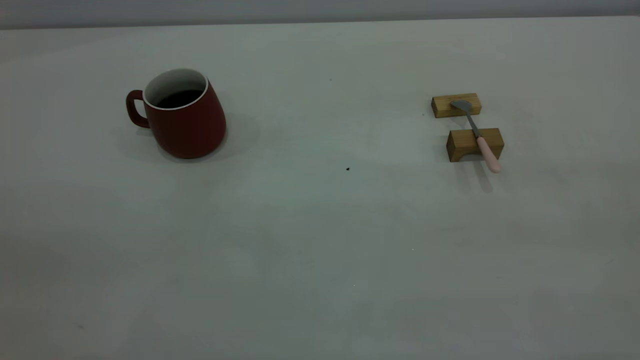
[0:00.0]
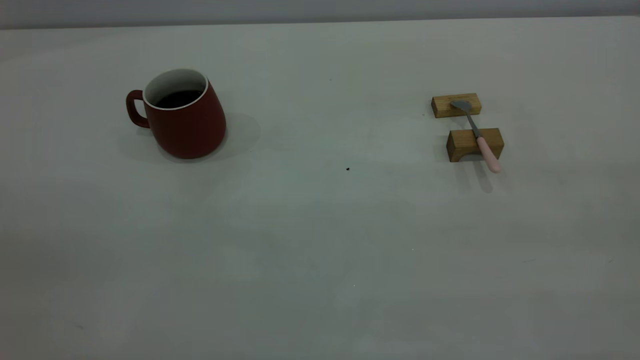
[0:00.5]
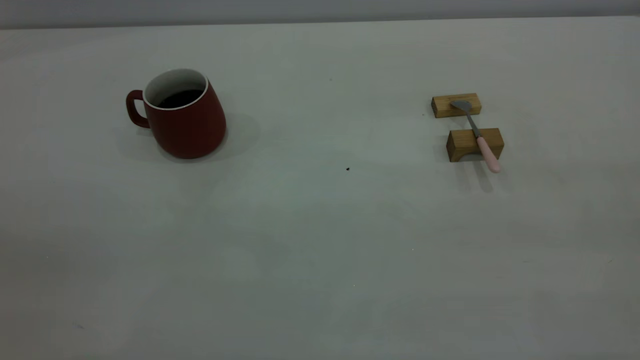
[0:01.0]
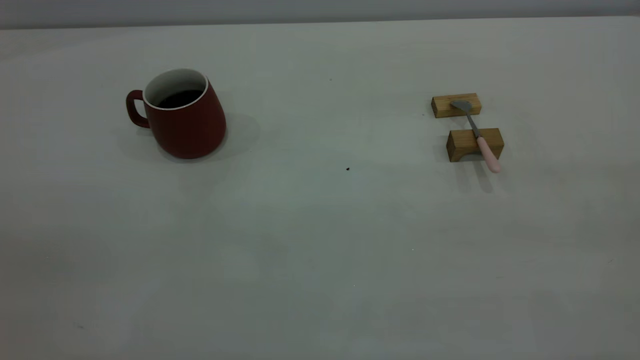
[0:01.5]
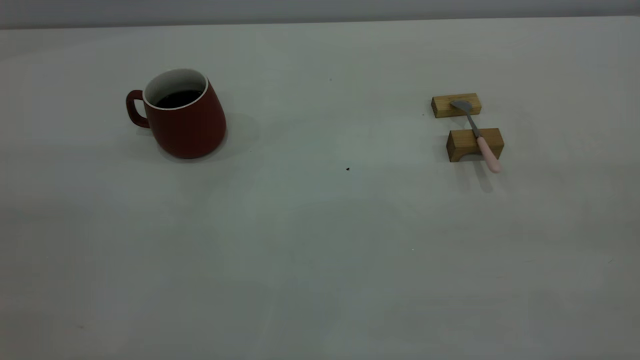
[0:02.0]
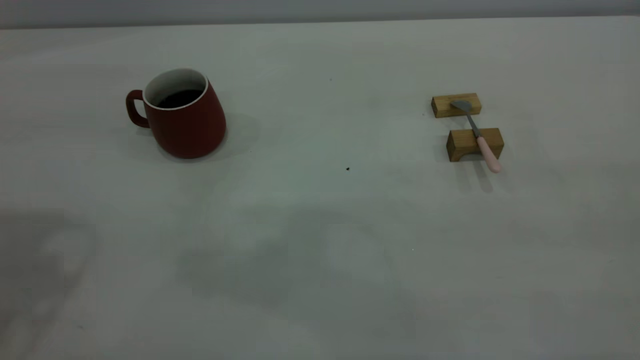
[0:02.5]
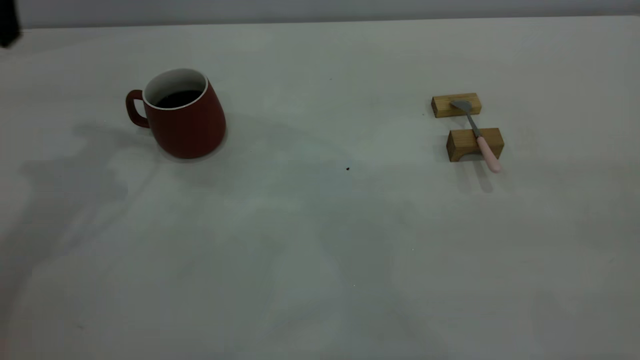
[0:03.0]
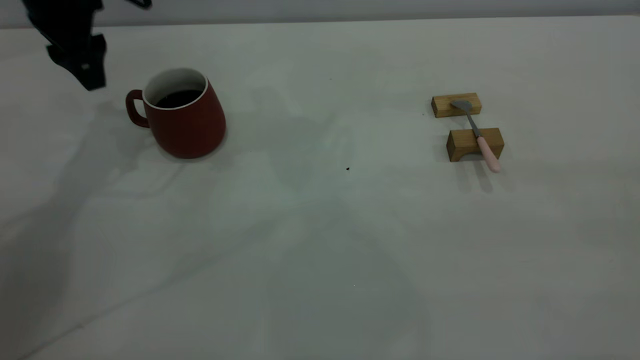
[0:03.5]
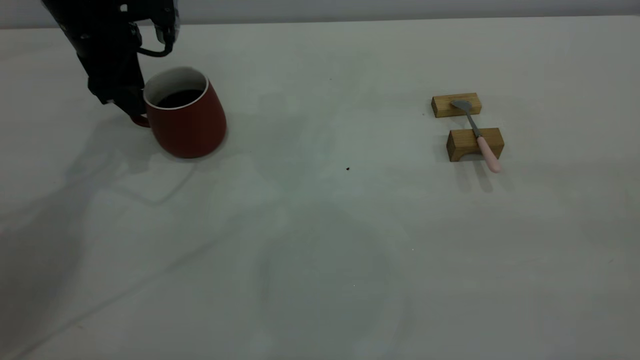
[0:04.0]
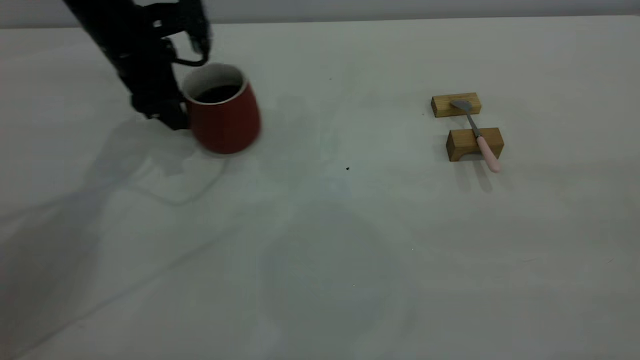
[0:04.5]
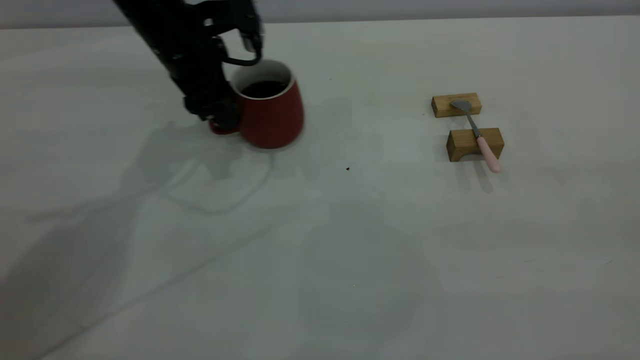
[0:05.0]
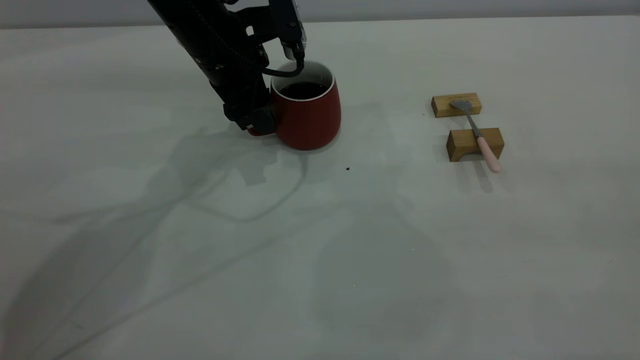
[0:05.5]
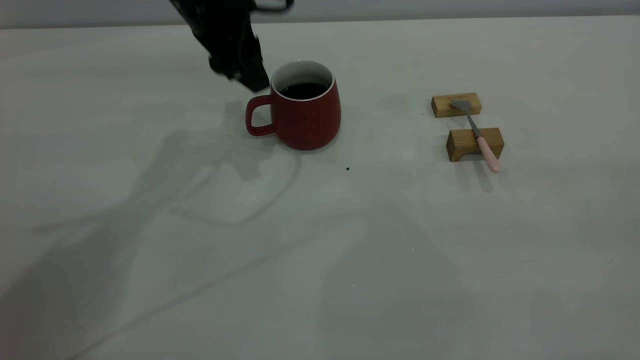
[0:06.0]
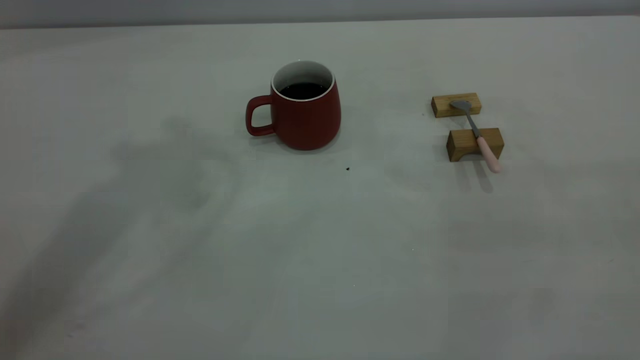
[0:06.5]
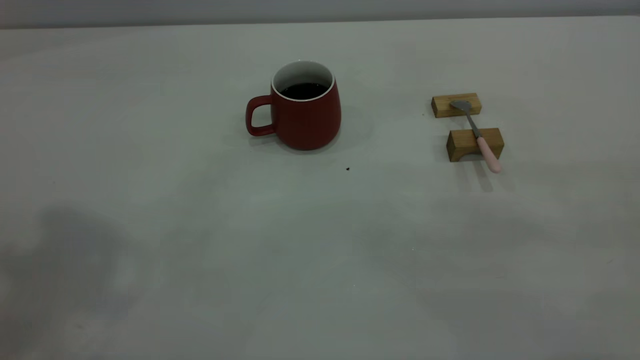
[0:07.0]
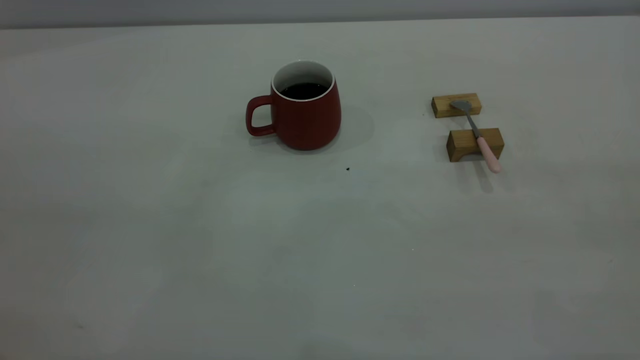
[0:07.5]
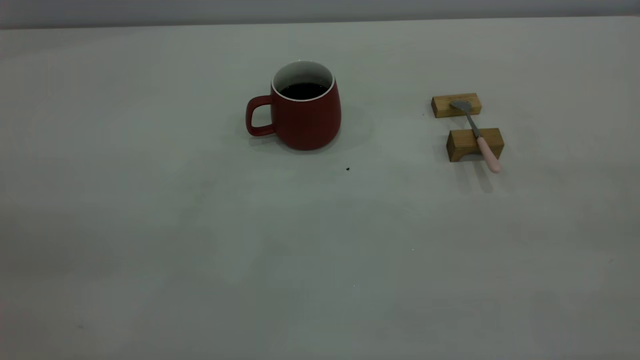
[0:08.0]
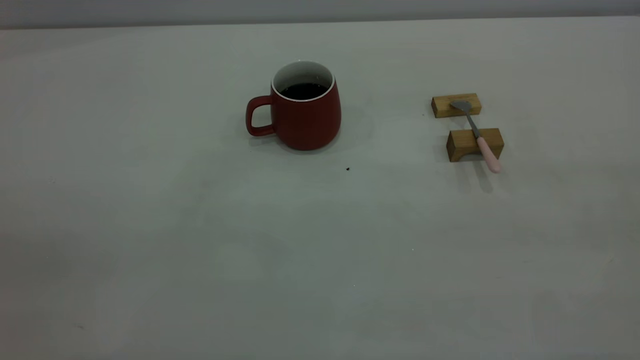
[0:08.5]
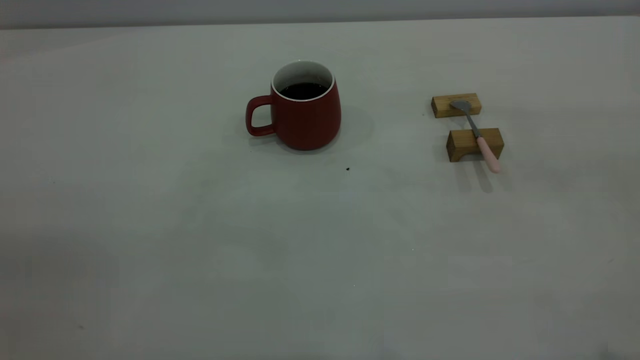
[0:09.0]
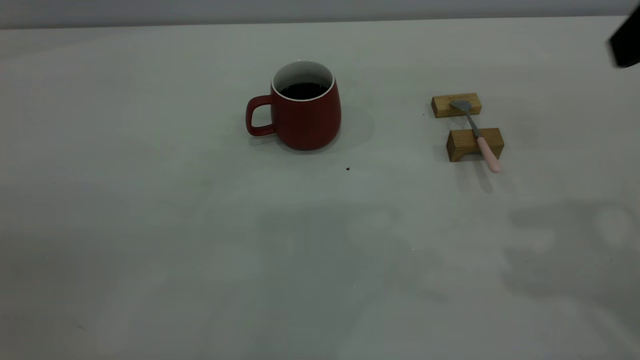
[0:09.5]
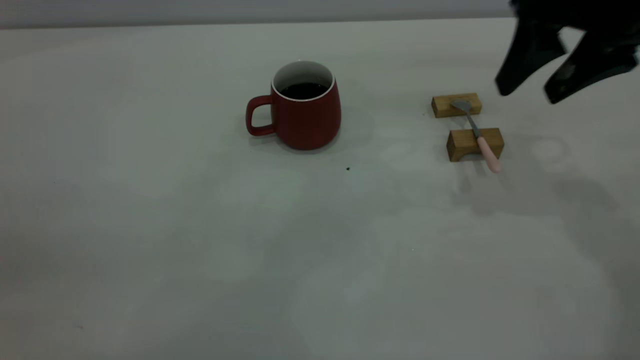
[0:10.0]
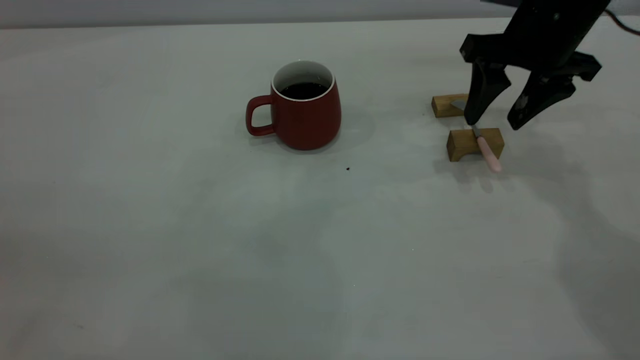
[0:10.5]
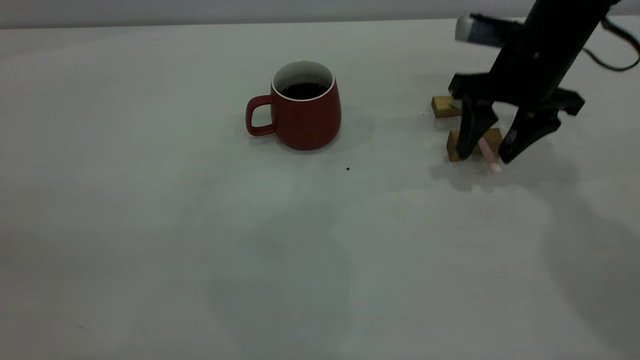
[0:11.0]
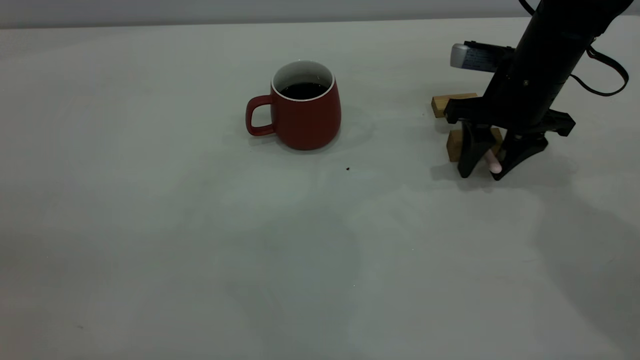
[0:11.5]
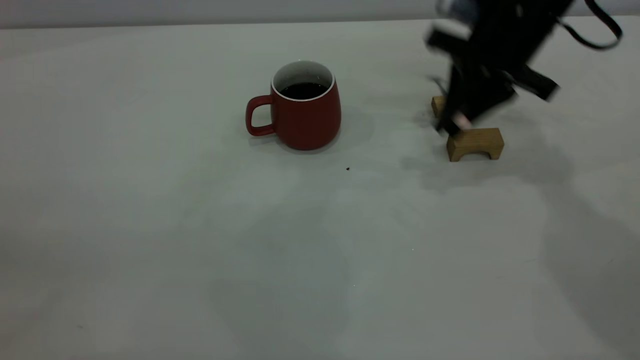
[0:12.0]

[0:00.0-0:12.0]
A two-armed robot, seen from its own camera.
Step, 0:00.0 to 0:06.0: Move the cup with coffee to the center of view.
Step, 0:06.5 to 0:11.5: Pick up the spoon.
0:02.0 to 0:04.0: The left gripper is displaced forward and downward by approximately 50 cm.
0:04.0 to 0:06.0: The left gripper is displaced to the right and upward by about 15 cm.
0:06.0 to 0:08.0: The left gripper moves backward, some 40 cm.
0:08.0 to 0:10.0: The right gripper heads forward, covering some 35 cm, and opens up.
0:10.0 to 0:12.0: The right gripper moves forward and downward, some 10 cm, and closes.

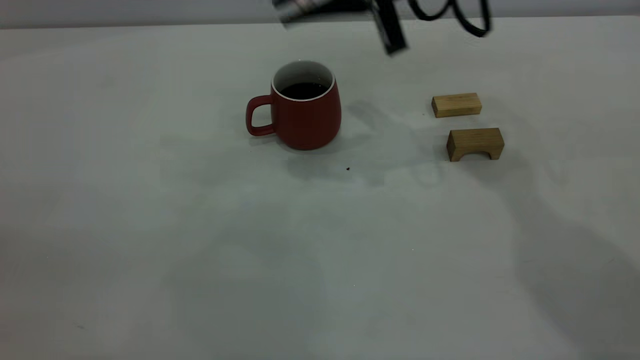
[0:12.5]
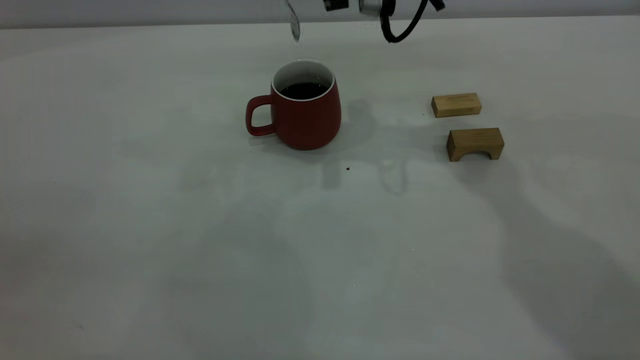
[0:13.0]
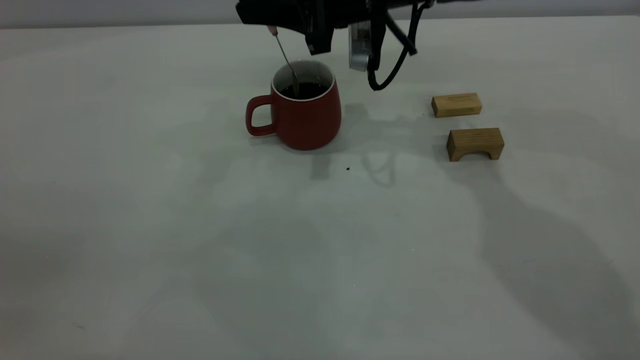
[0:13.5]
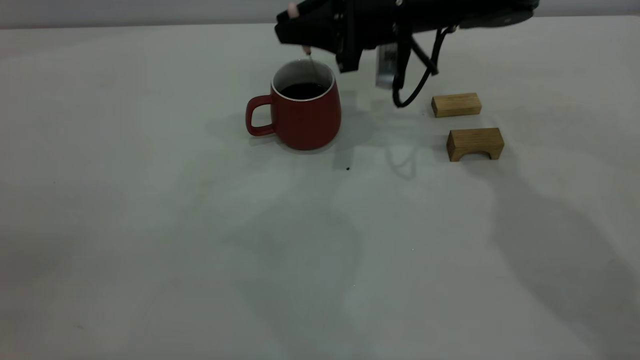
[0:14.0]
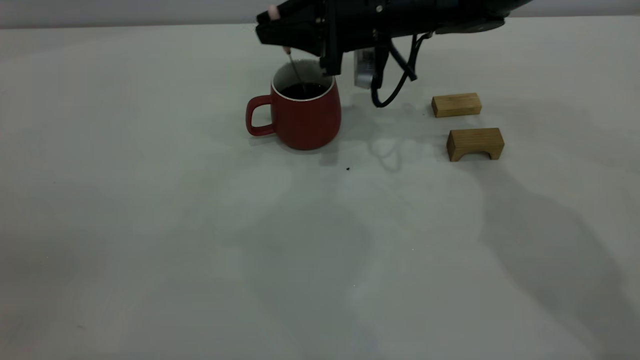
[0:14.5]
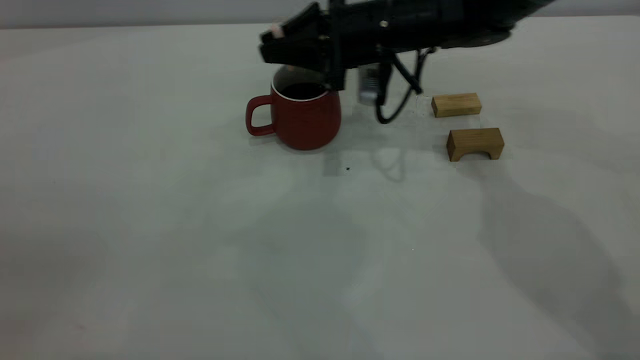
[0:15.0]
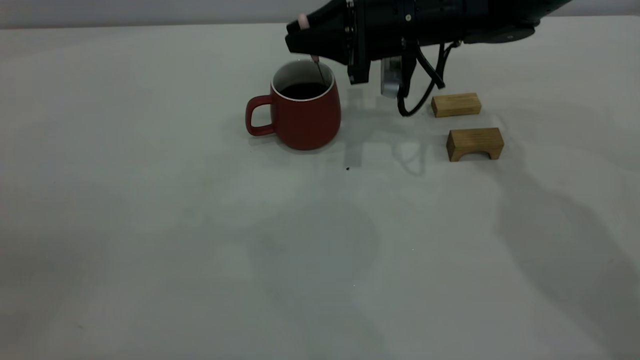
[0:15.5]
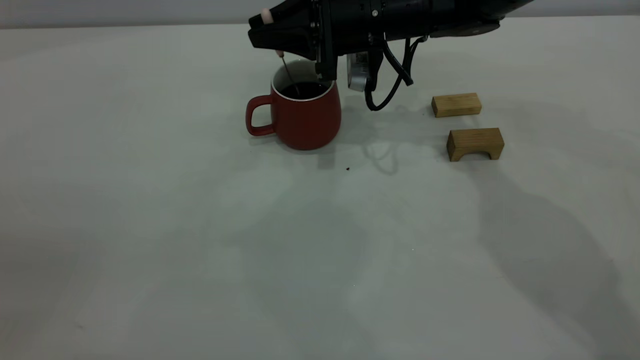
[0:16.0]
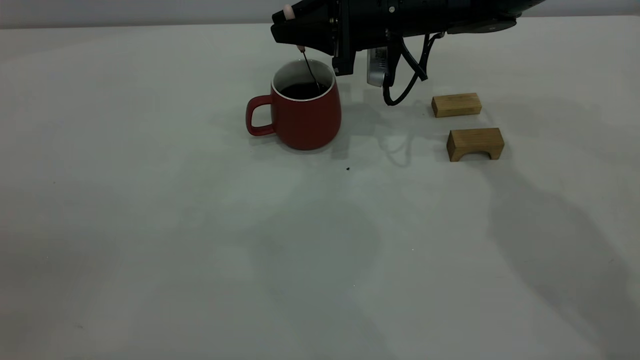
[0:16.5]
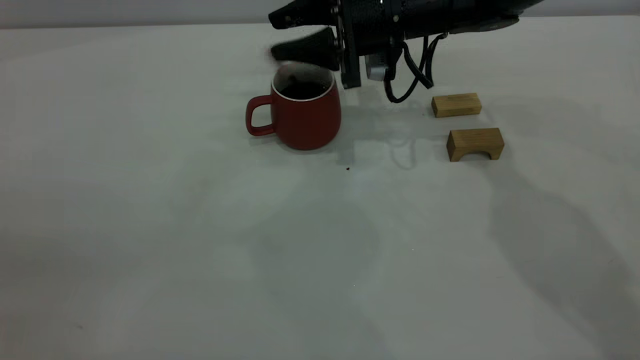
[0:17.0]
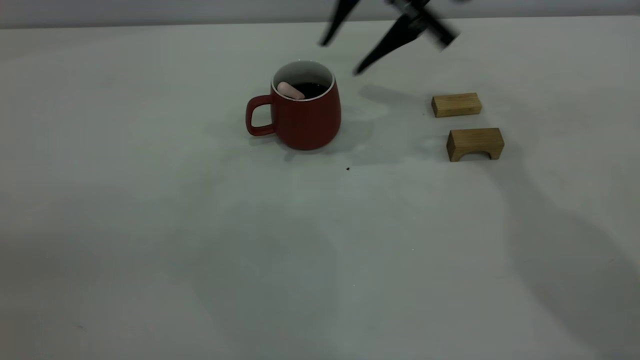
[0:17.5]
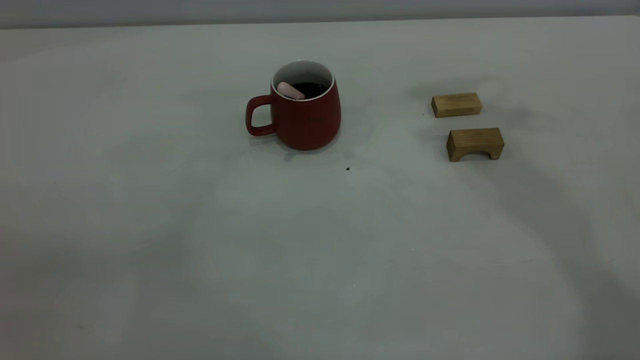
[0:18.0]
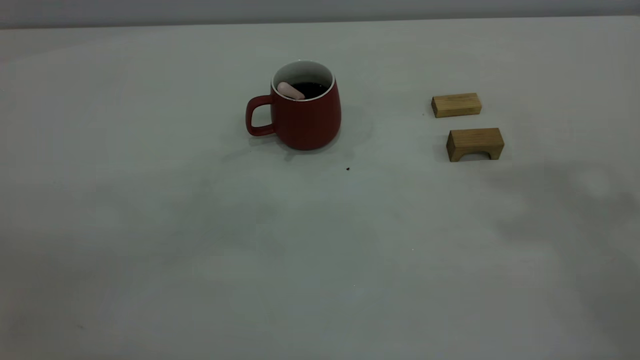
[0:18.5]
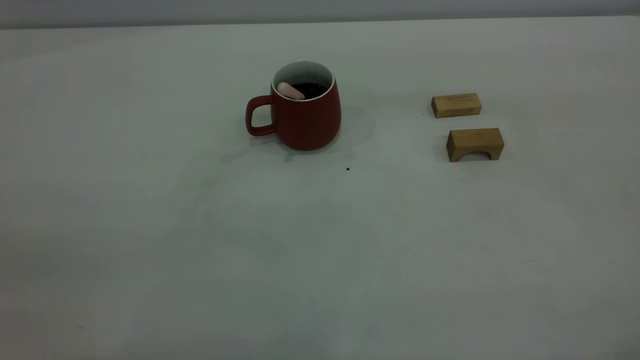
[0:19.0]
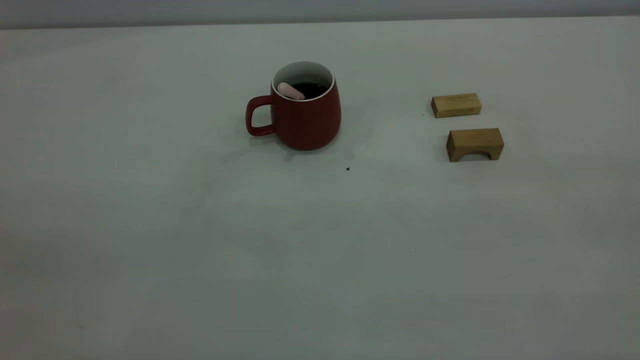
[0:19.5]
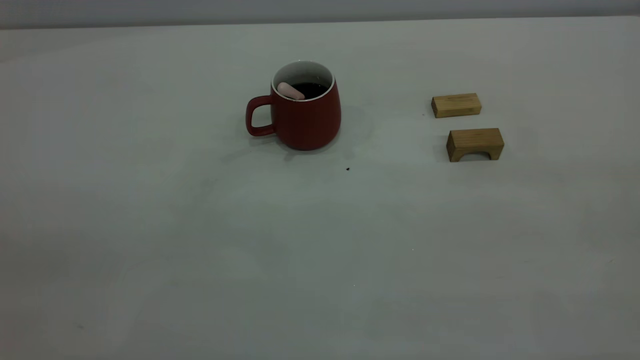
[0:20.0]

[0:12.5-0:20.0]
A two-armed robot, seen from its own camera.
Step, 0:12.5 to 0:17.0: Stir the coffee in the cup.
0:12.5 to 0:14.5: The right gripper moves downward and forward, about 10 cm.
0:14.5 to 0:16.5: The grippers move only a little.
0:16.5 to 0:18.0: The right gripper is displaced upward by roughly 30 cm, and opens and closes again.
